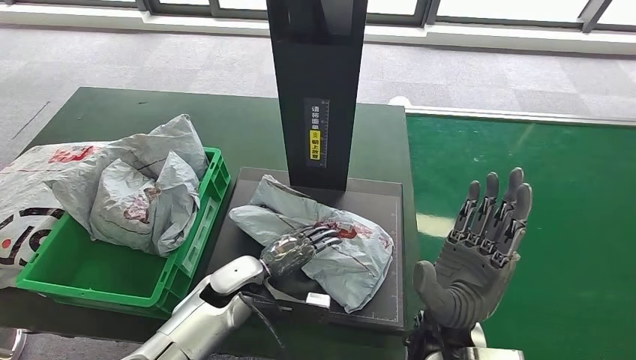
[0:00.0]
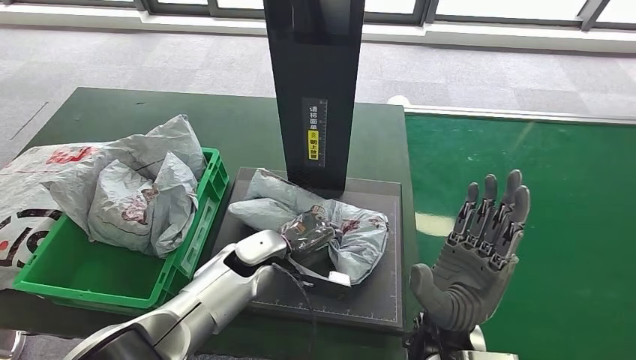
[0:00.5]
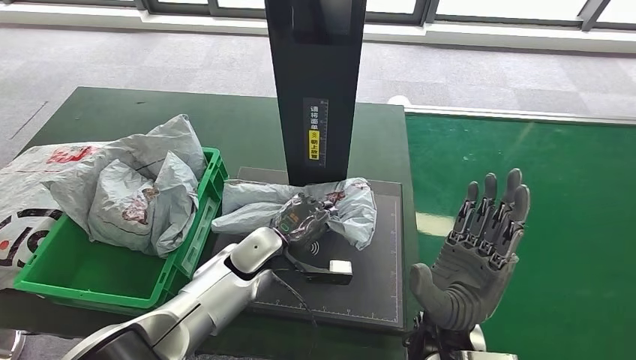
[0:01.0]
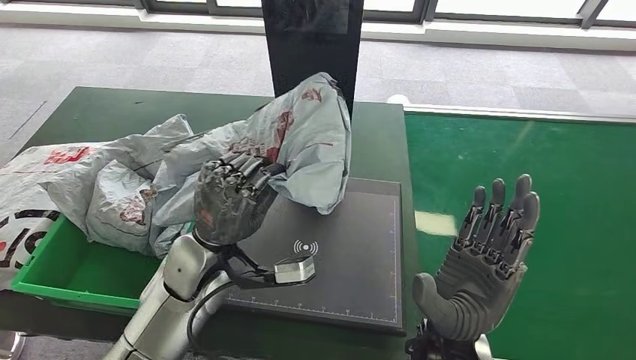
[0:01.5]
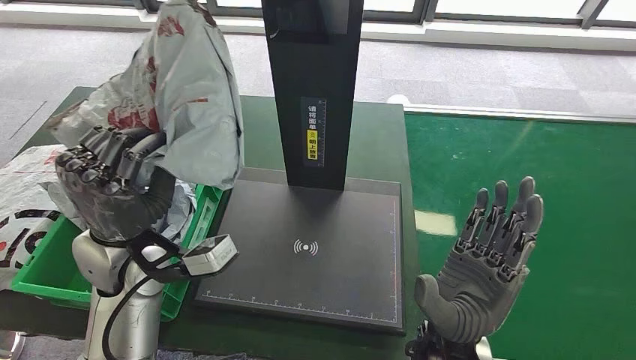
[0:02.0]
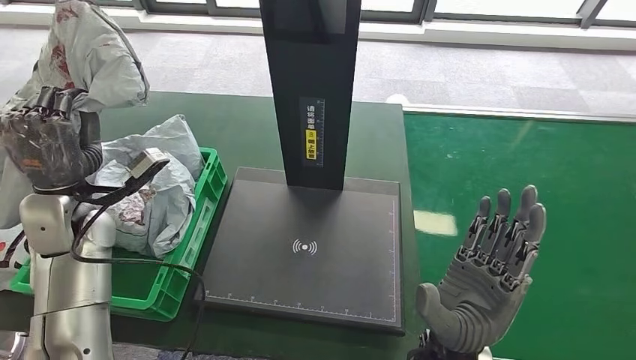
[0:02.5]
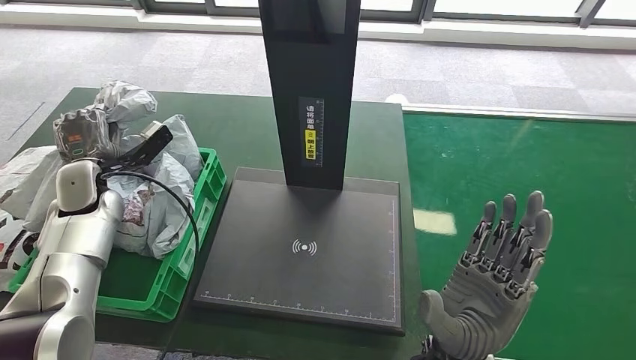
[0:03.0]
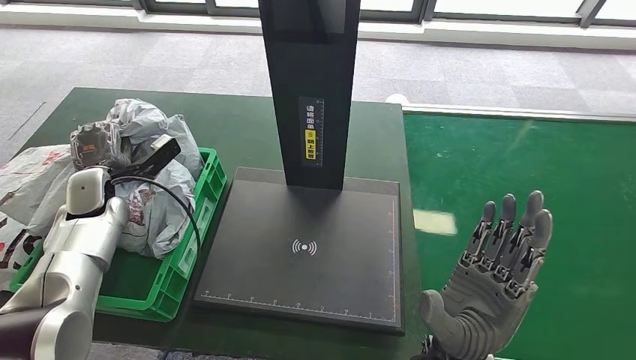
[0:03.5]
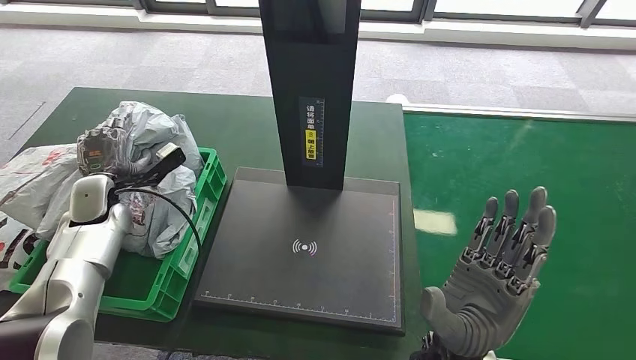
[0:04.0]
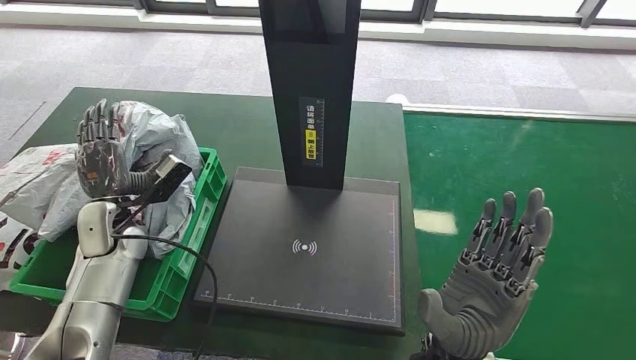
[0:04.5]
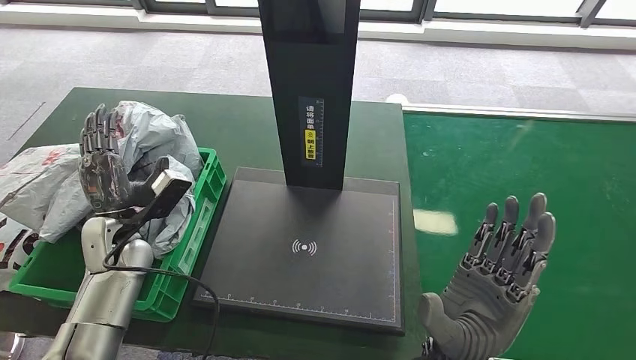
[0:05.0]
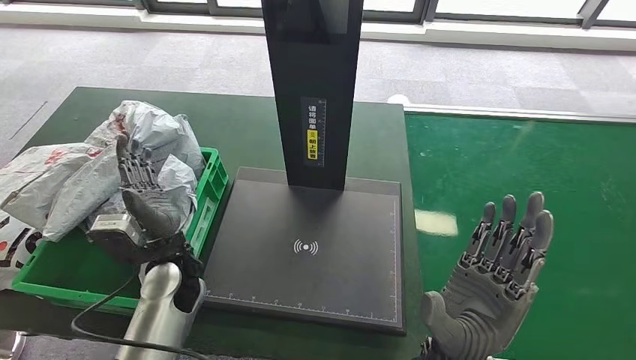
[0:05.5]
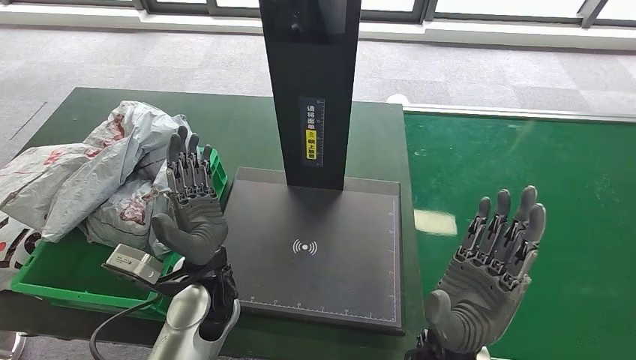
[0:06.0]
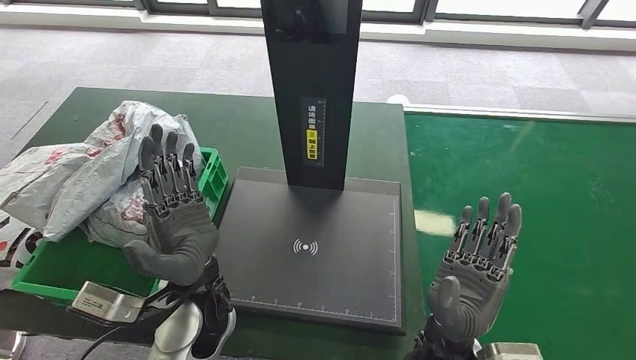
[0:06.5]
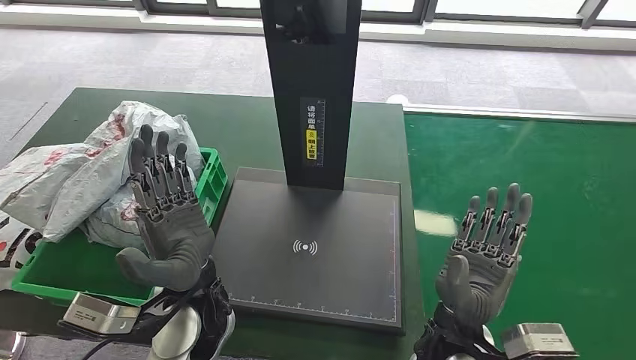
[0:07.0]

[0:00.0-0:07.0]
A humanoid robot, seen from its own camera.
Step, 0:00.0 to 0:02.5: Pick up the parcel from the inbound machine.
Step, 0:03.0 to 0:06.5: Place the parcel into the delivery box.
0:03.5 to 0:05.0: The left hand moves backward, roughly 5 cm.
0:05.0 to 0:07.0: The left hand travels to the right and backward by about 20 cm.
